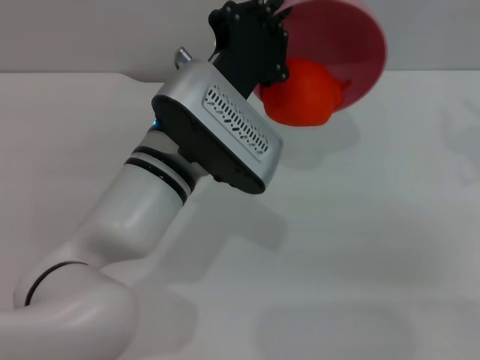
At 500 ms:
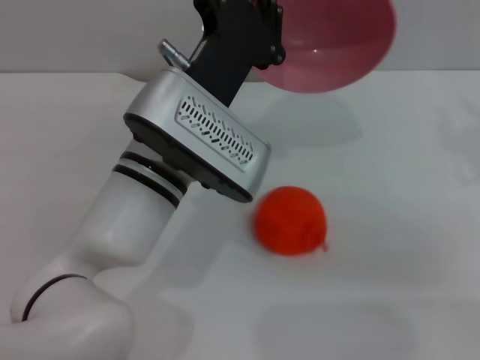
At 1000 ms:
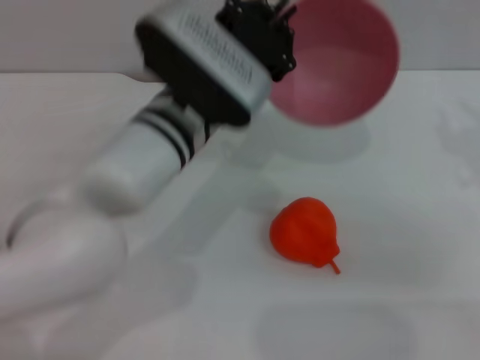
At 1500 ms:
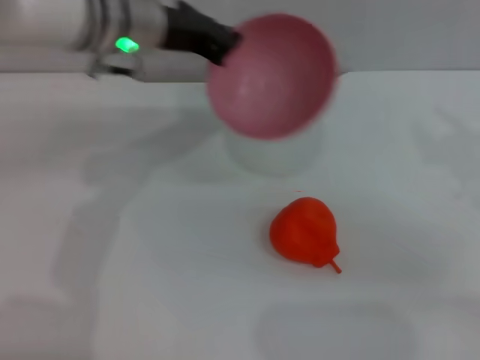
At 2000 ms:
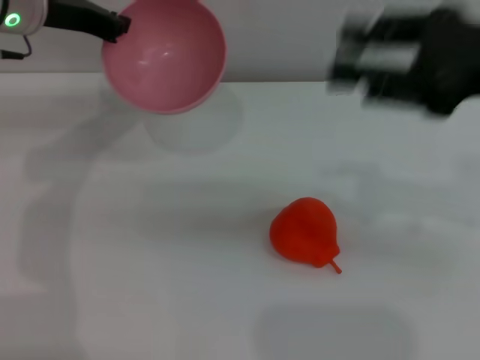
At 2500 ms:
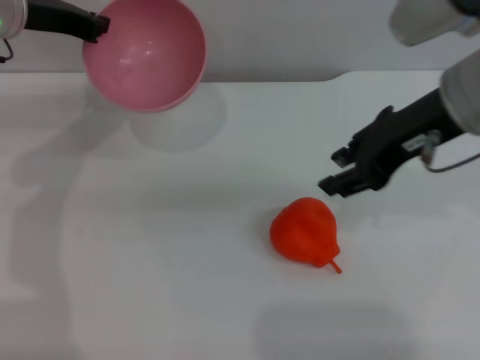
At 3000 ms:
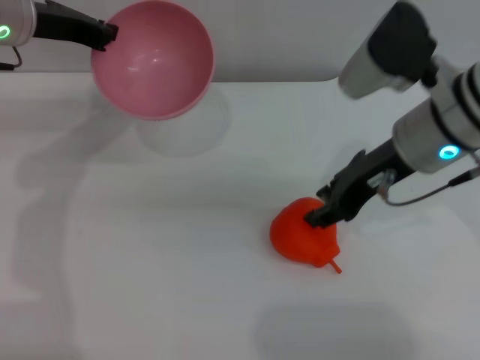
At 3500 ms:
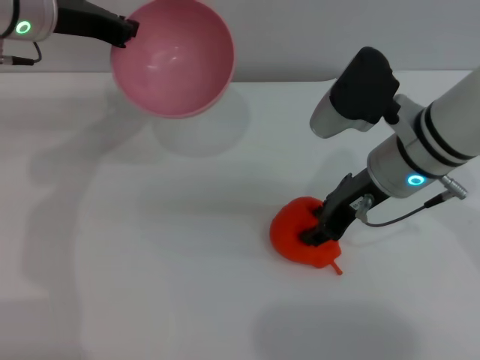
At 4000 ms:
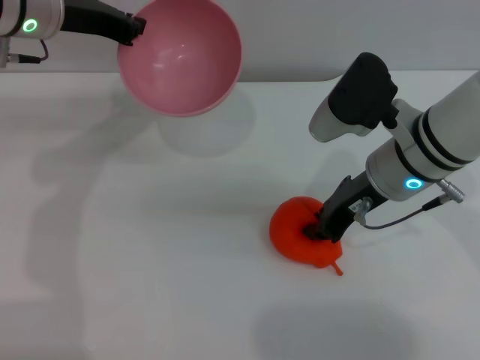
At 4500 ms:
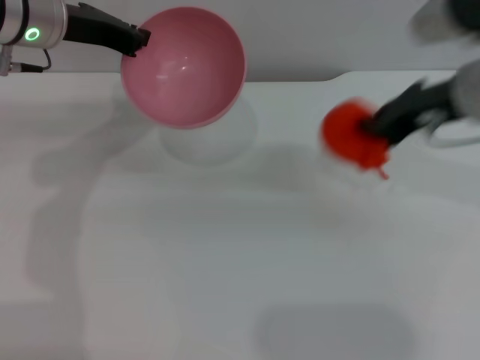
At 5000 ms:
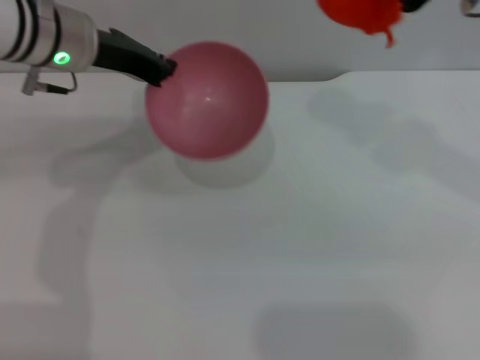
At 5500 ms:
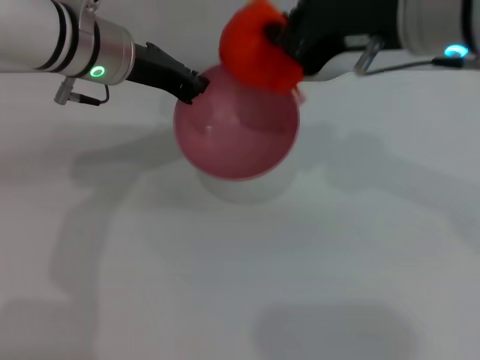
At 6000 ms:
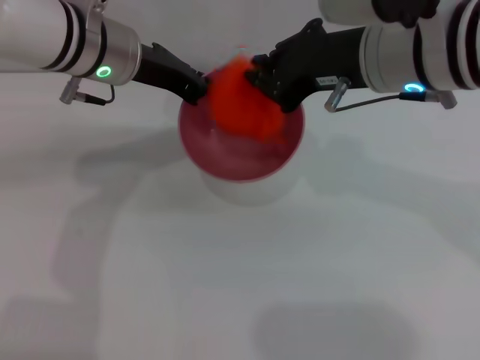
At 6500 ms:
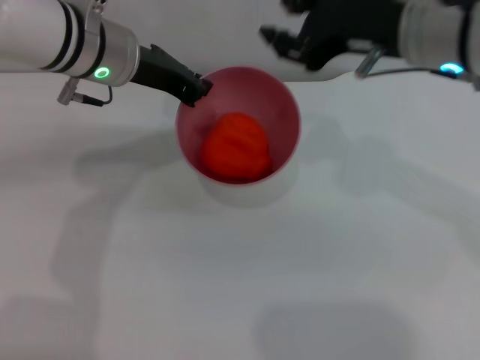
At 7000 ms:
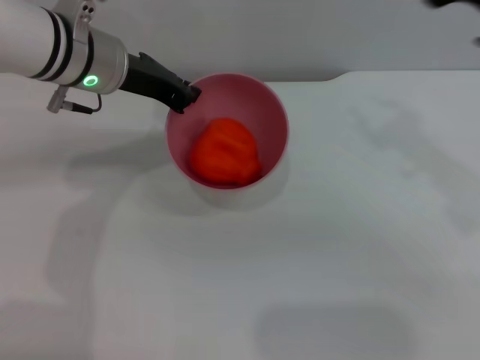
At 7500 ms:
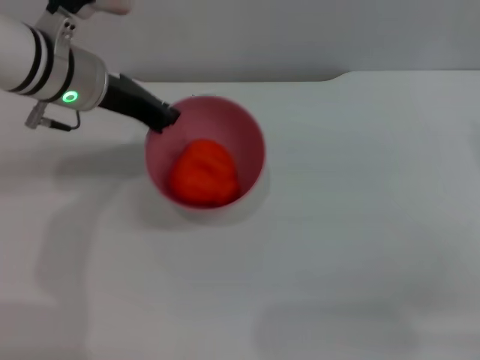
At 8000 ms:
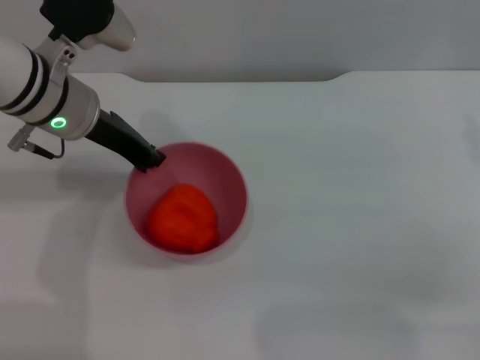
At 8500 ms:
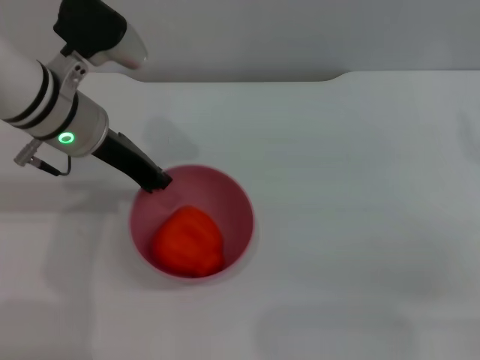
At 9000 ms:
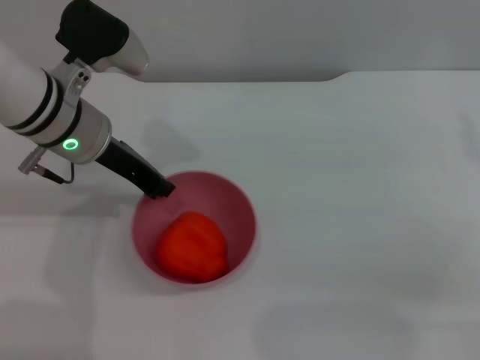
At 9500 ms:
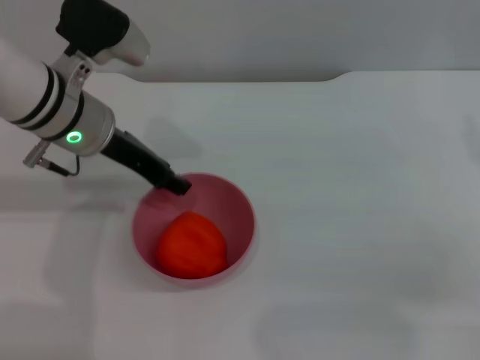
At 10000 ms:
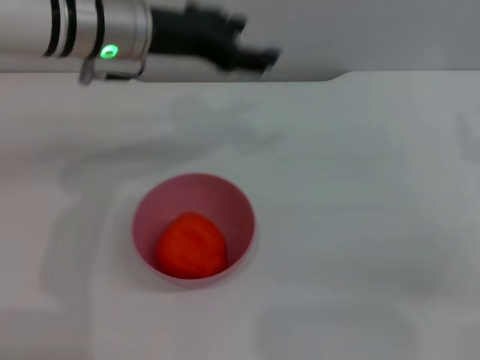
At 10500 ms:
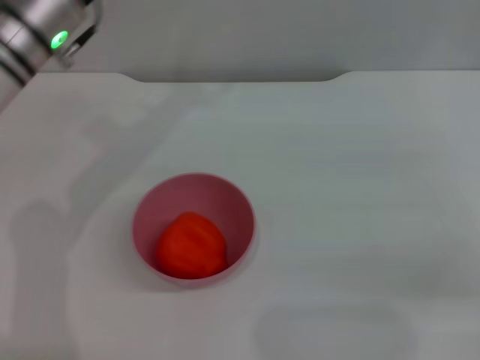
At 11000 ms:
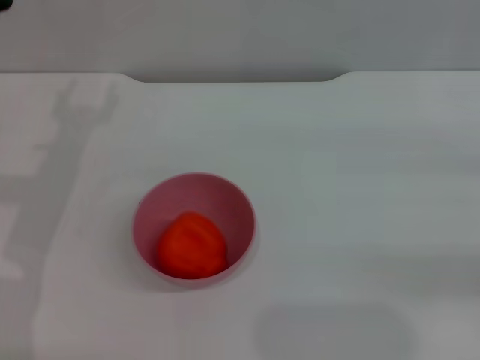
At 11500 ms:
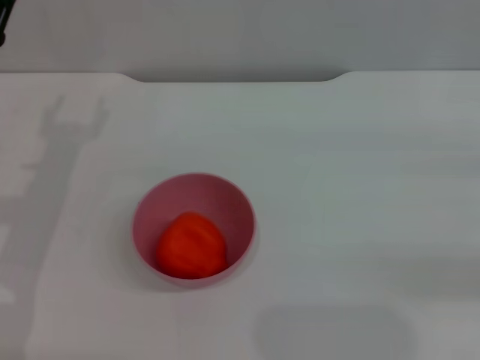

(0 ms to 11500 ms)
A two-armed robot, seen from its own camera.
Task of the whole recording: put the orange into the pink bowl and pour it out repeatedly.
Step, 500 ms - 4500 ms: Pick up the orange with the right gripper.
Step, 5000 ms - 6000 ms: Place the orange into the bowl.
Step, 6500 ms - 9500 ms: Place the bowl on the table.
0 ms - 2000 ms: The left gripper shifts about 25 cm to the left, forward and upward, while the right gripper shifts some 10 cm upward and to the left.
2000 ms - 4000 ms: The right gripper is displaced downward, to the left and forward by roughly 20 cm, and closes up.
4000 ms - 6000 ms: The right gripper moves upward, approximately 10 cm. The left gripper goes about 5 cm to the right.
6000 ms - 7500 ms: The right gripper is displaced to the right by approximately 20 cm, and opens.
7500 ms - 9500 ms: The left gripper opens its fingers.
9500 ms - 11500 ms: The left gripper is displaced to the left, backward and downward by about 15 cm, and opens its fingers.
